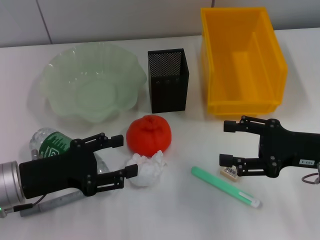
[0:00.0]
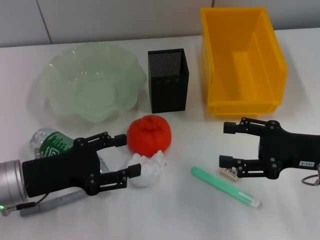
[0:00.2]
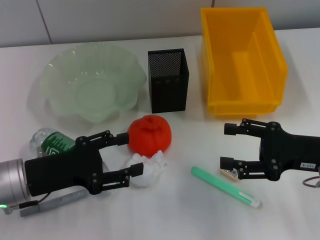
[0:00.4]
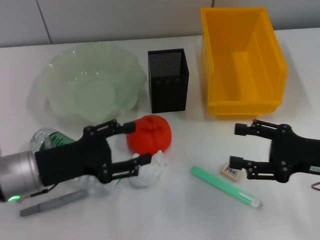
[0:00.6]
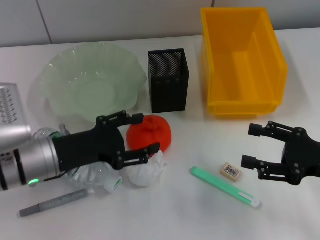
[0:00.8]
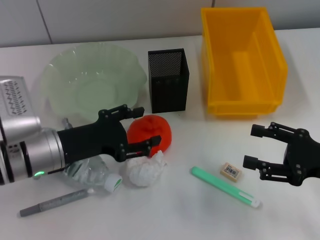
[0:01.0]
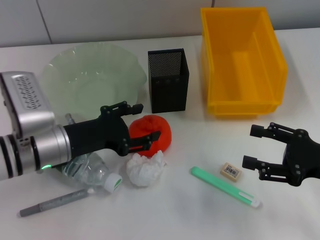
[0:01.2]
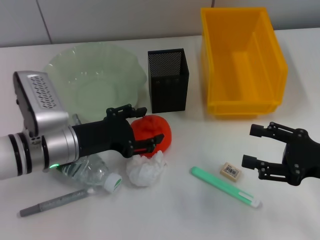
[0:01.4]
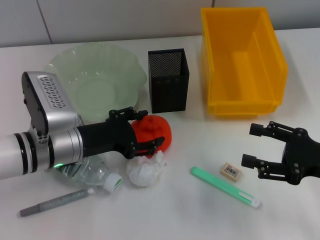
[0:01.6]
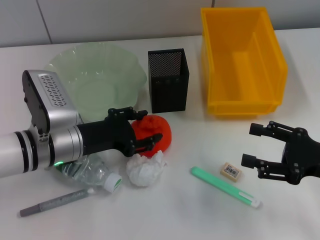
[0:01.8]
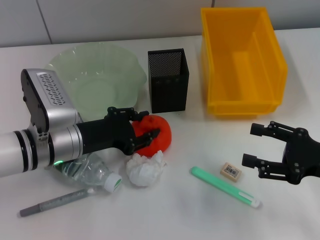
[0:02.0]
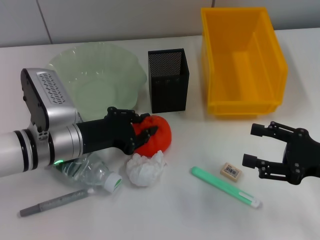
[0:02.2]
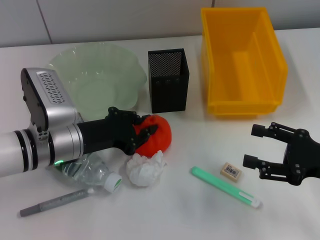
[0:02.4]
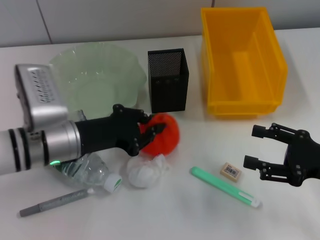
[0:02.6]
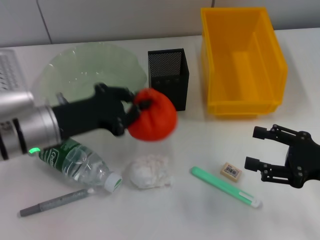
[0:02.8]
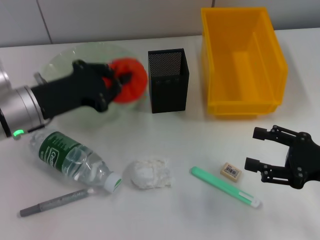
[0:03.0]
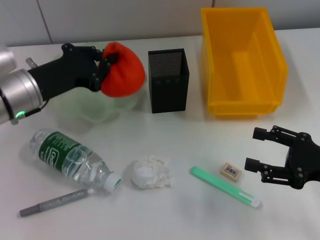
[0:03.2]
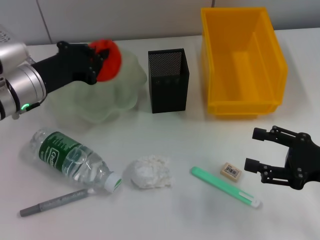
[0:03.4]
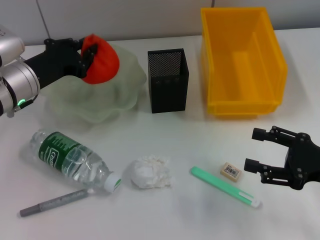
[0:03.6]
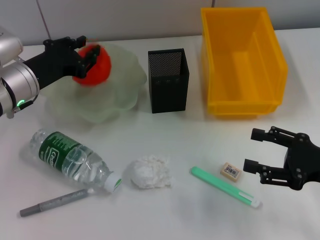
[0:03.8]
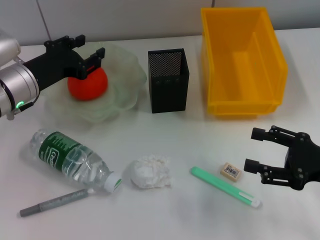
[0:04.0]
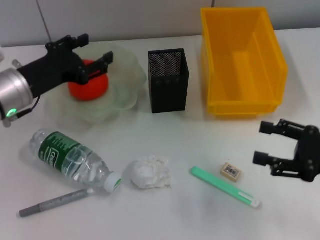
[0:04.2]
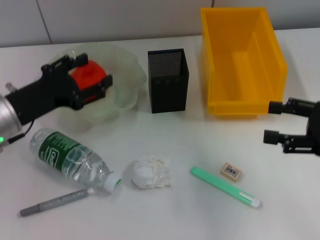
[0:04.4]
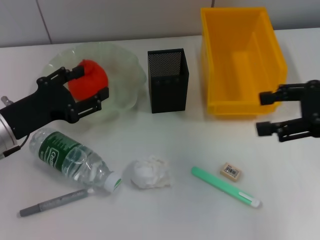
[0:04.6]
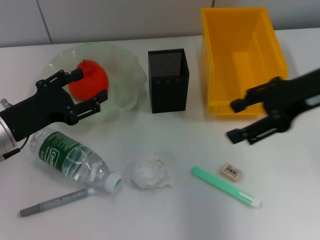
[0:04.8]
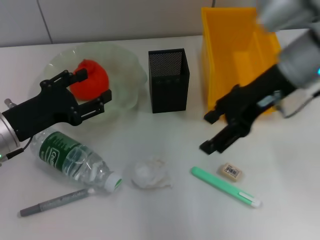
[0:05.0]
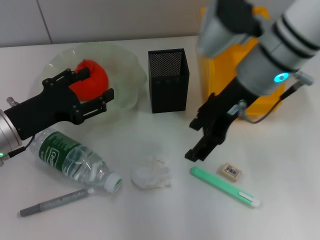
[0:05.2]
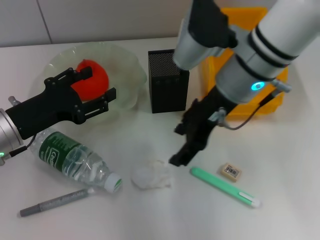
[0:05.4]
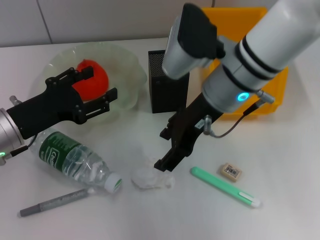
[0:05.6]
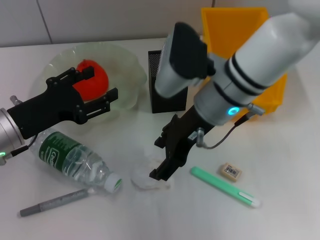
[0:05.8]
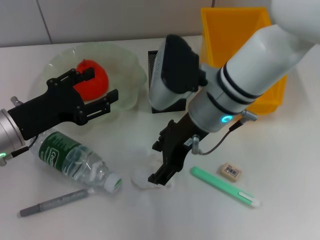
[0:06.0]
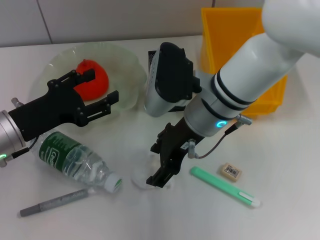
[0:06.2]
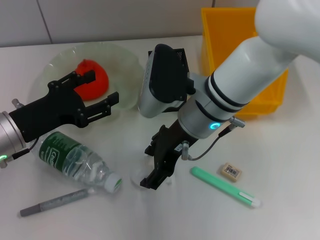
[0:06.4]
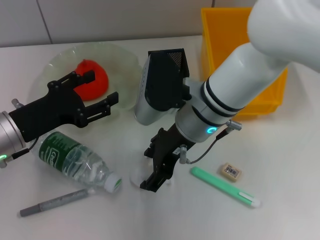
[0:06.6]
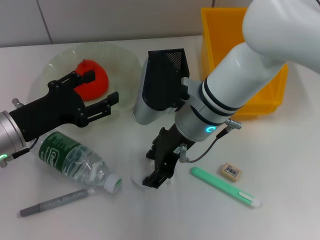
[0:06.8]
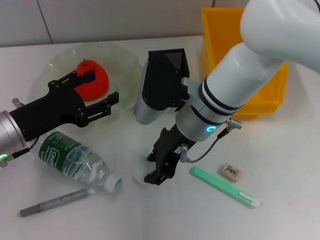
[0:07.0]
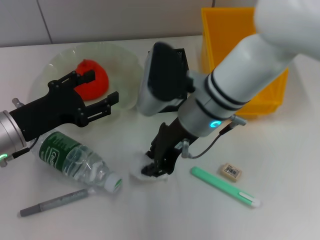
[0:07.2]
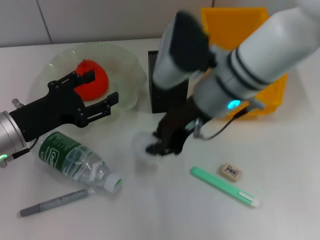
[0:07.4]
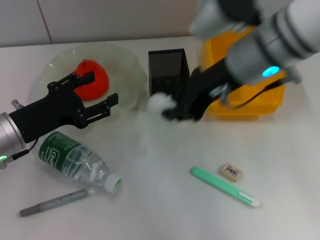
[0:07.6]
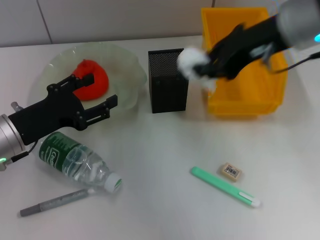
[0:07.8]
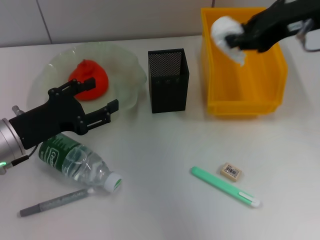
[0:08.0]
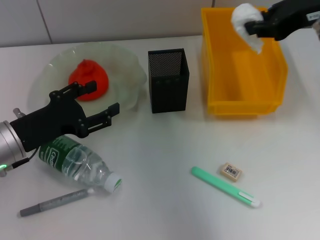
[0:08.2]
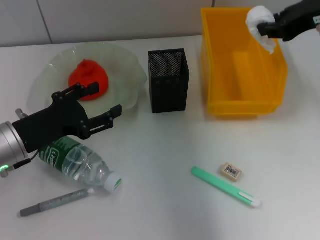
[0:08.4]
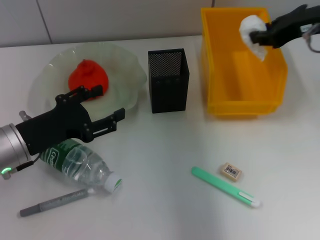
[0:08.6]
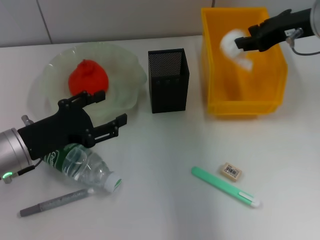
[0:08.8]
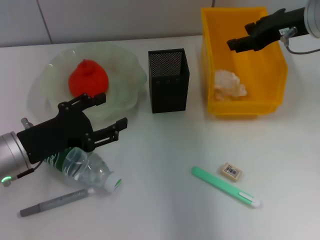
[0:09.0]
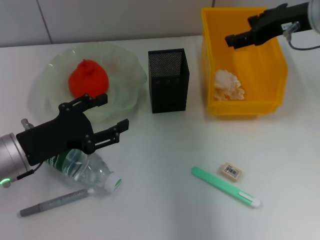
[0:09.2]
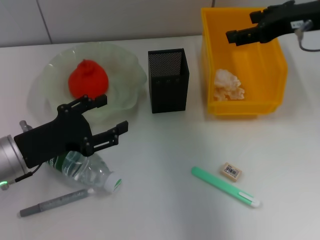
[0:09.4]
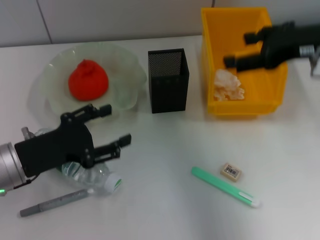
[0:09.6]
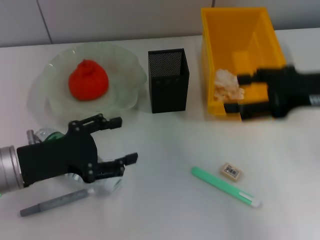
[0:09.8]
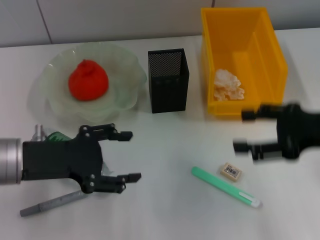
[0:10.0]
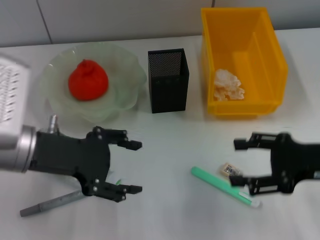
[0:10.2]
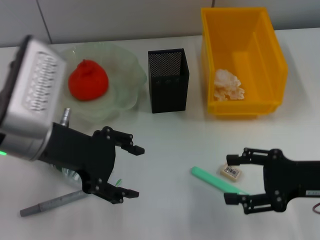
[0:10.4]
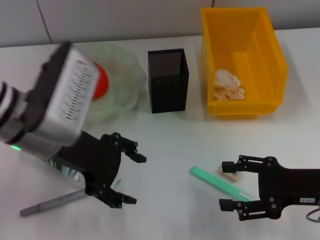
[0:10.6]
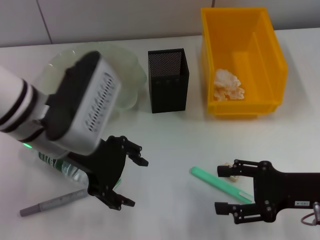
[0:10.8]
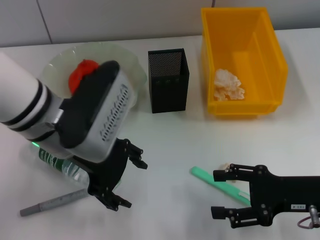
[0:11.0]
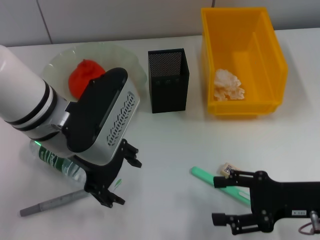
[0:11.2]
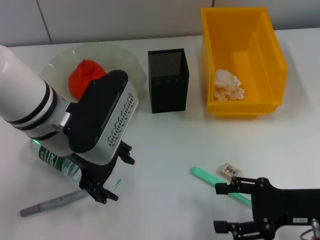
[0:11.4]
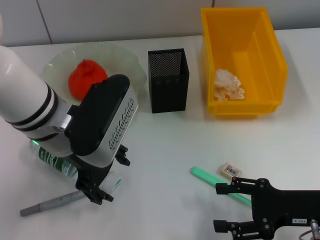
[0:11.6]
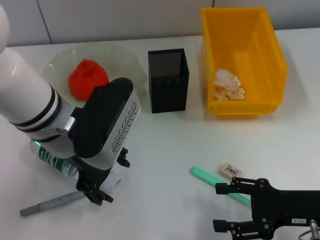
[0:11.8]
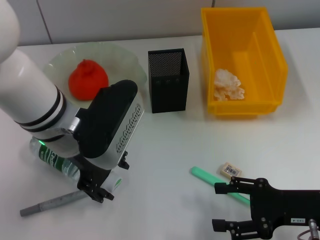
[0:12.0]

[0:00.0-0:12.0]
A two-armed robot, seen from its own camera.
Step, 0:00.0 to 0:02.2: Grab the orange with the left hand.
Step, 0:02.6 to 0:04.2: Place the orange into the fruit bowl with the left hand.
Step, 0:04.4 to 0:07.0: Grab the paper ball with the right hand.
Step, 0:07.2 to 0:09.0: Place the paper ball into the trash can with the right hand.
0:00.0 to 0:01.6: The left gripper goes roughly 10 cm to the right and forward.
0:01.6 to 0:03.0: The left gripper shifts some 5 cm upward, and closes up.
0:03.0 to 0:04.4: The right gripper is displaced upward by about 5 cm; the left gripper opens.
0:04.4 to 0:06.0: The right gripper moves to the left, roughly 25 cm.
0:06.0 to 0:07.6: The right gripper moves upward, about 10 cm, and closes.
0:07.6 to 0:09.0: The right gripper travels to the right and forward by roughly 15 cm.
0:09.0 to 0:10.4: The right gripper shifts some 20 cm backward and downward, and opens its fingers, while the left gripper moves upward and to the right, about 10 cm.
0:10.4 to 0:12.0: The left gripper is displaced to the right by approximately 5 cm.

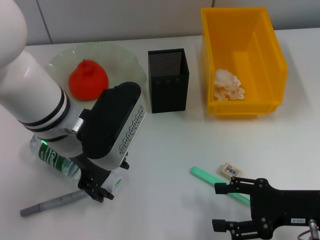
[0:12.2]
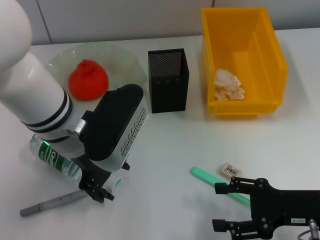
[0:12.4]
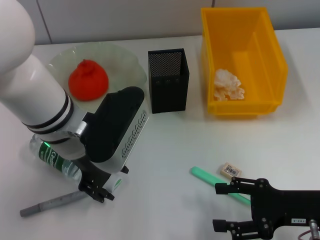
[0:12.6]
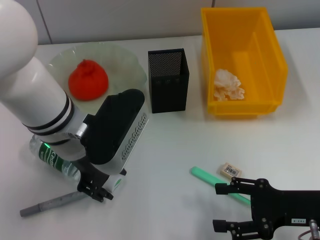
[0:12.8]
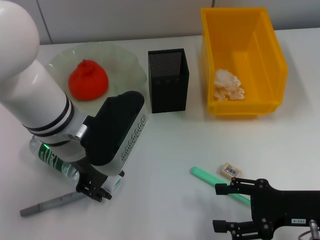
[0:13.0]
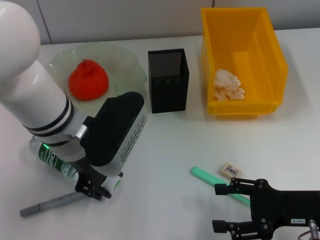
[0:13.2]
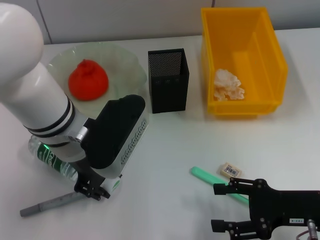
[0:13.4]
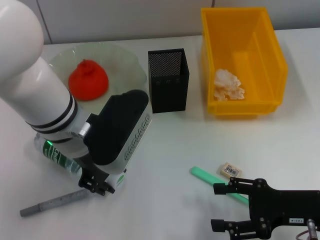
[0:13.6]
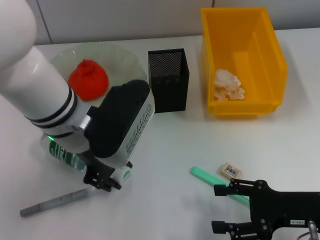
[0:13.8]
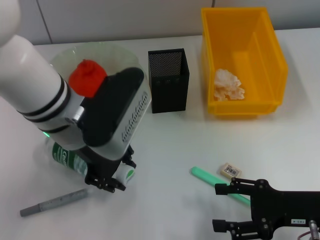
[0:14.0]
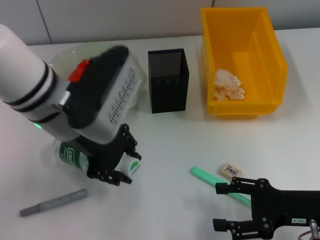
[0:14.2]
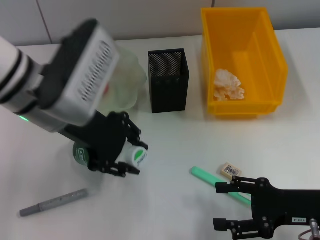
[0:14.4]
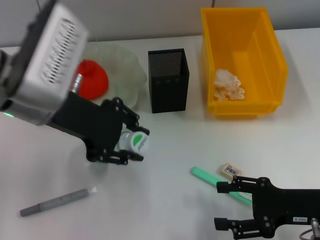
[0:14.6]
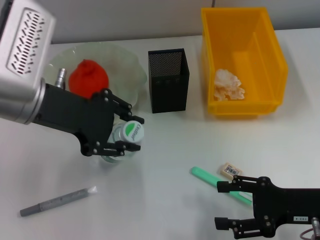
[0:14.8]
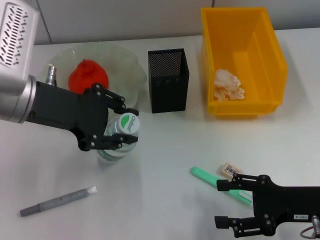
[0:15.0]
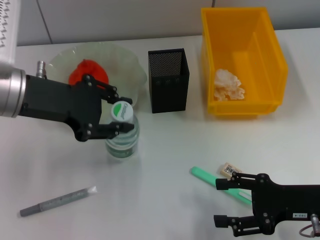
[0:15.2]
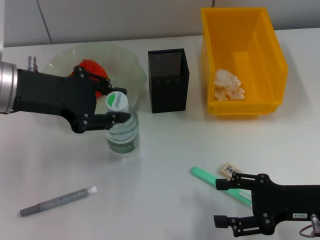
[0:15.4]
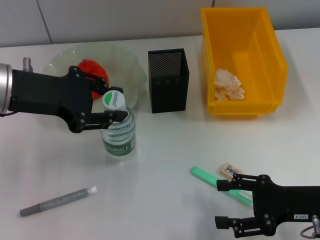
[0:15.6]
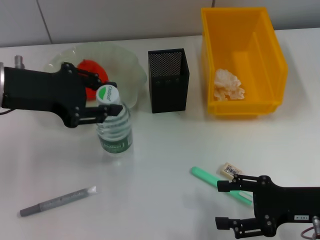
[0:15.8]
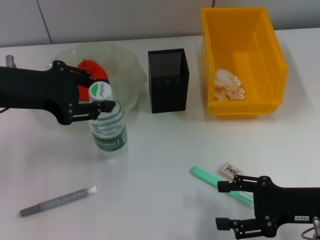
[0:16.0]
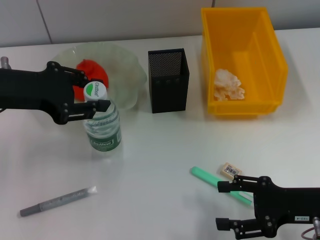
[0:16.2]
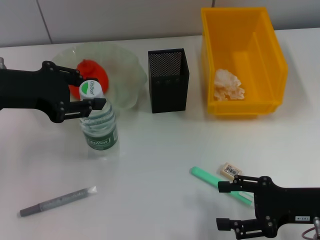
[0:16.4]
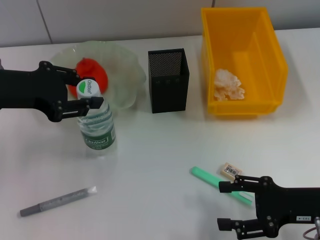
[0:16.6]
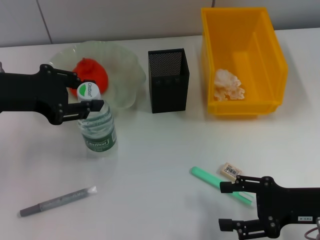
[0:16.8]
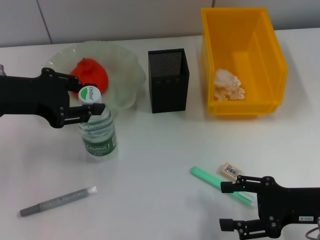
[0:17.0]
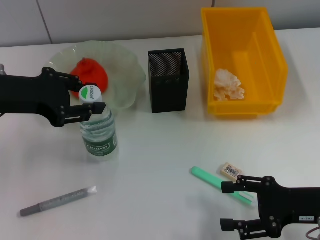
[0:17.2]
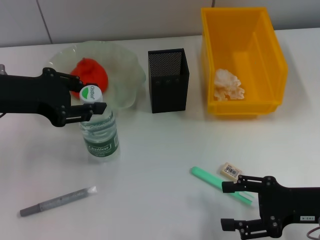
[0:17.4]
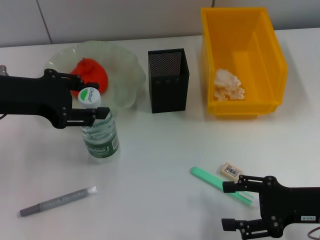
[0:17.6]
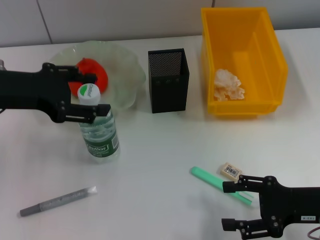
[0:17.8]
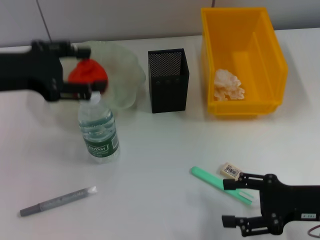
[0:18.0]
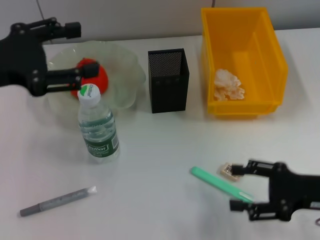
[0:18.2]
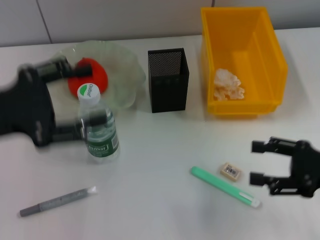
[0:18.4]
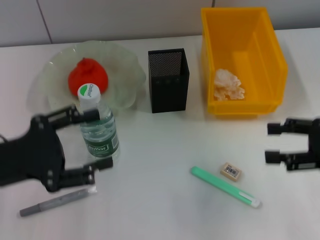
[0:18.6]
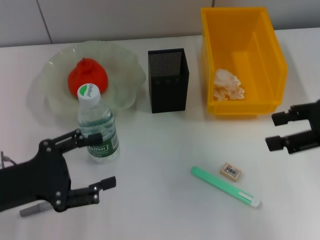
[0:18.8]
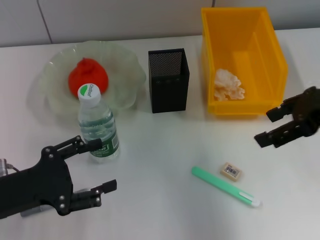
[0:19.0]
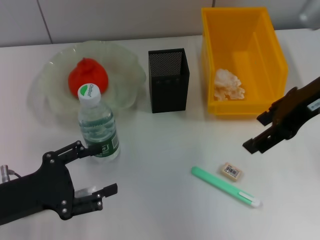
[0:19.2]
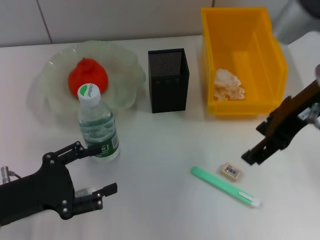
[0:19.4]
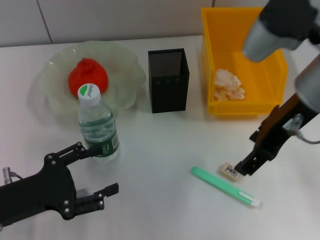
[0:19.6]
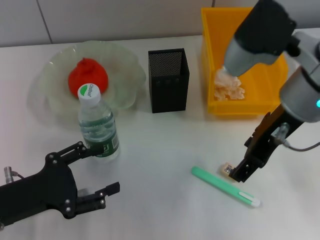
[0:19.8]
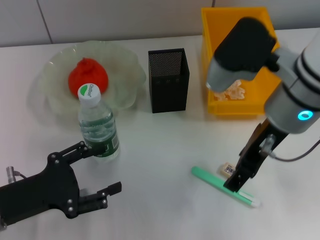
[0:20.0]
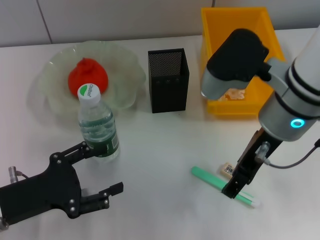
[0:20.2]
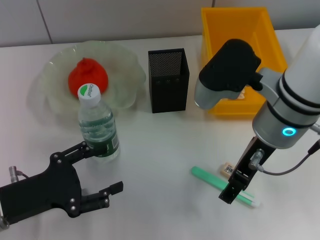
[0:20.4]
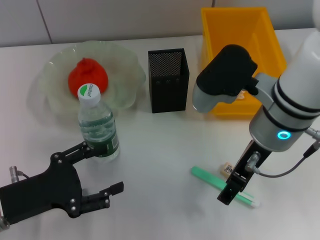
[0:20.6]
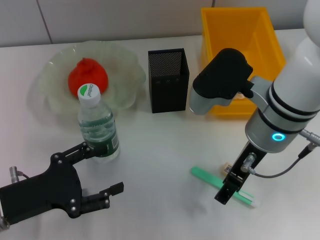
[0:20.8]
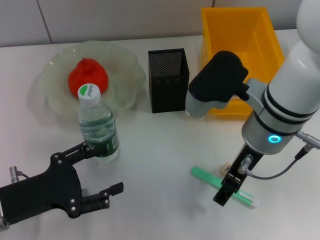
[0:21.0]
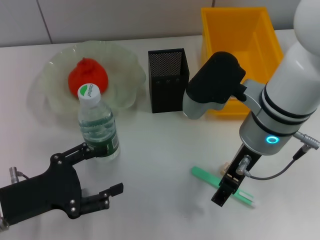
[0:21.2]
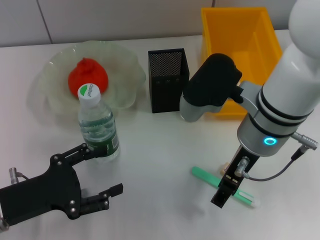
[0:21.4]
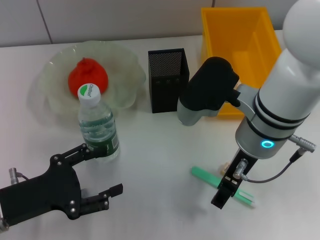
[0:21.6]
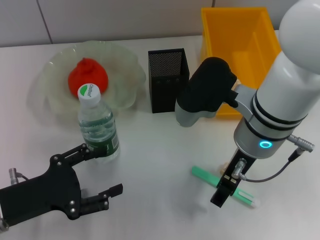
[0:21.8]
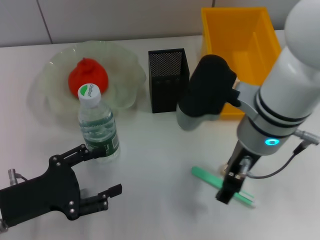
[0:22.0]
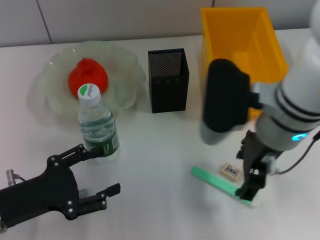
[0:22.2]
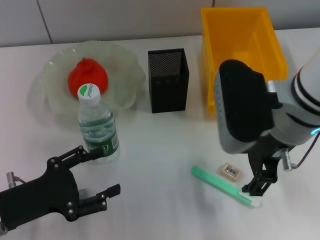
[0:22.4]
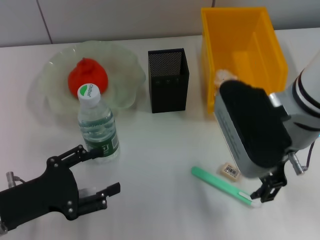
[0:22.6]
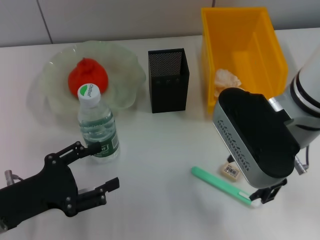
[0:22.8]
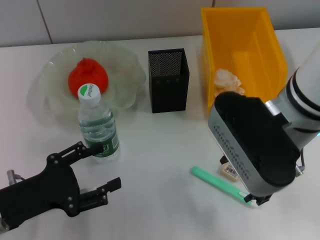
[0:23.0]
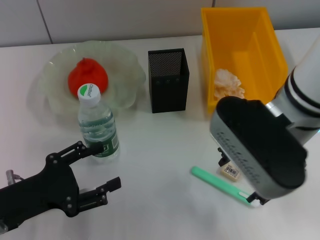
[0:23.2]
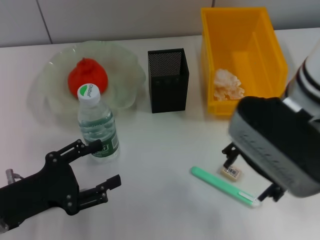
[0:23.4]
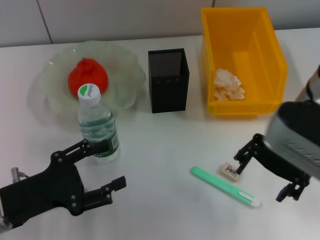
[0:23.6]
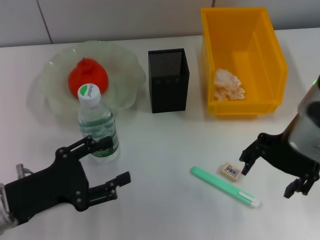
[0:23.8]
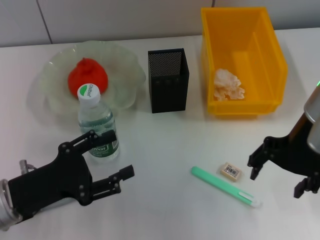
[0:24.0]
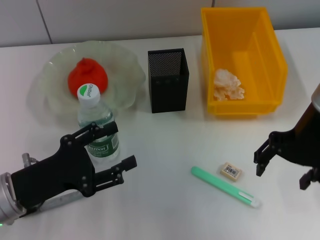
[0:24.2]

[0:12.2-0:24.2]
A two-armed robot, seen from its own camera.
Step, 0:13.4 to 0:17.8: Place the water bottle on the table with the left hand.
0:12.2 to 0:13.8: The left gripper closes its fingers.
0:13.8 to 0:15.2: The left gripper heads to the left, covering approximately 10 cm.
0:15.2 to 0:16.6: The grippers make only small movements.
0:16.6 to 0:18.2: The left gripper opens its fingers.
0:18.2 to 0:19.8: The right gripper shifts roughly 25 cm upward, to the left and forward, while the left gripper shifts roughly 15 cm downward and backward.
0:19.8 to 0:21.2: The right gripper shifts roughly 5 cm downward.
0:22.6 to 0:24.2: The right gripper heads to the right, covering roughly 5 cm.
